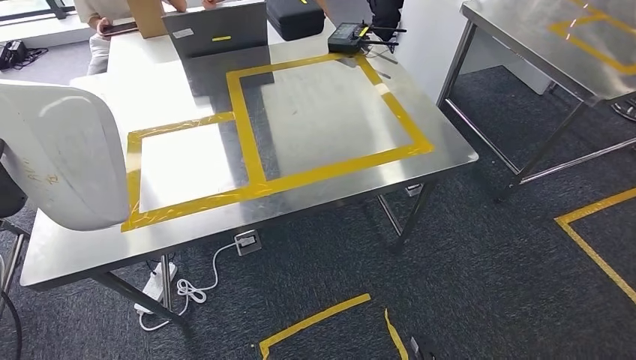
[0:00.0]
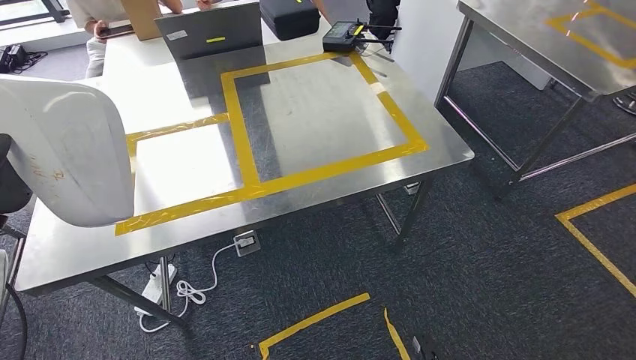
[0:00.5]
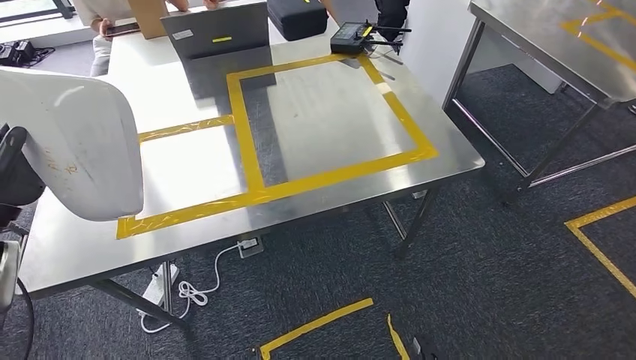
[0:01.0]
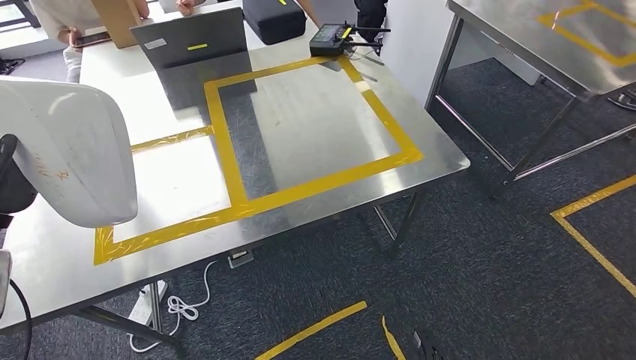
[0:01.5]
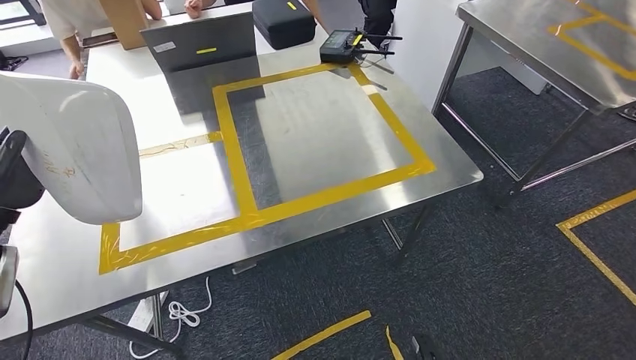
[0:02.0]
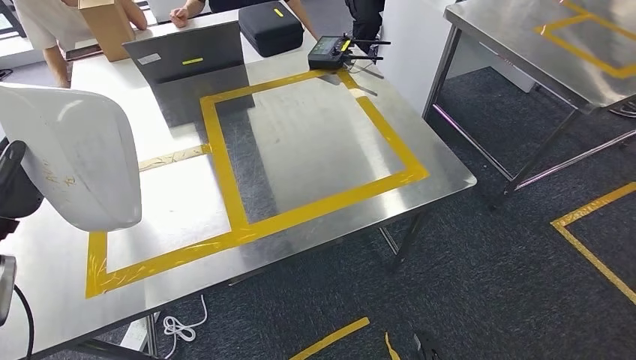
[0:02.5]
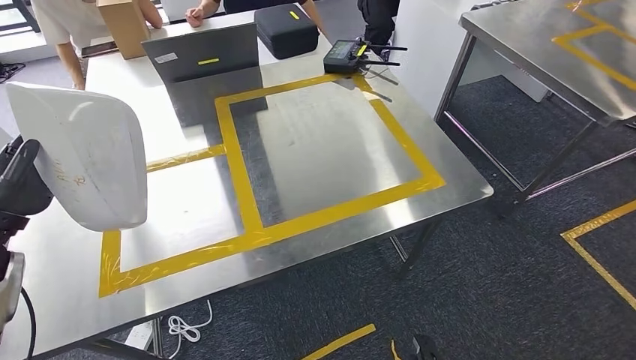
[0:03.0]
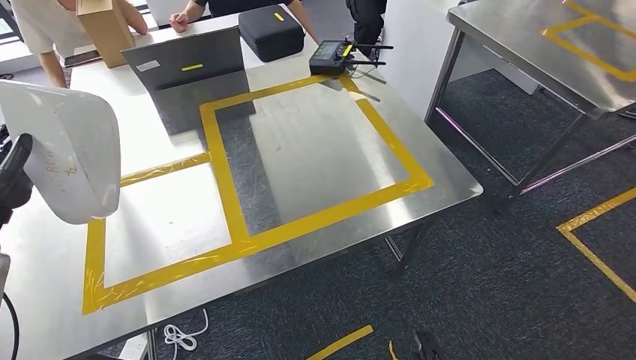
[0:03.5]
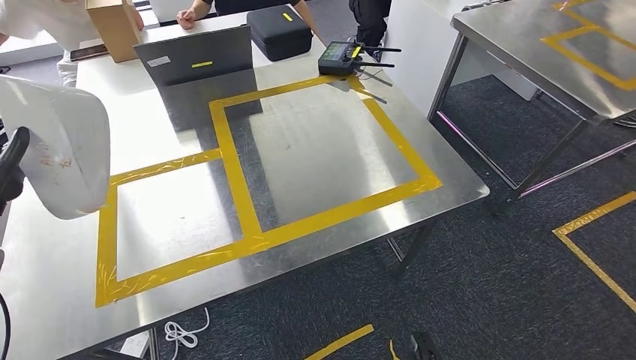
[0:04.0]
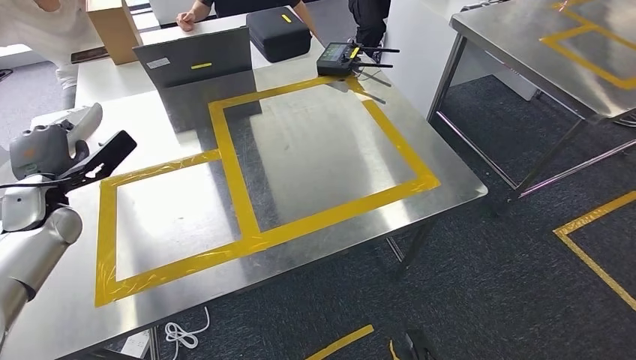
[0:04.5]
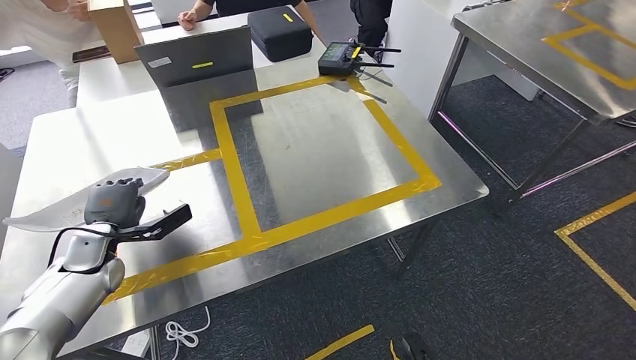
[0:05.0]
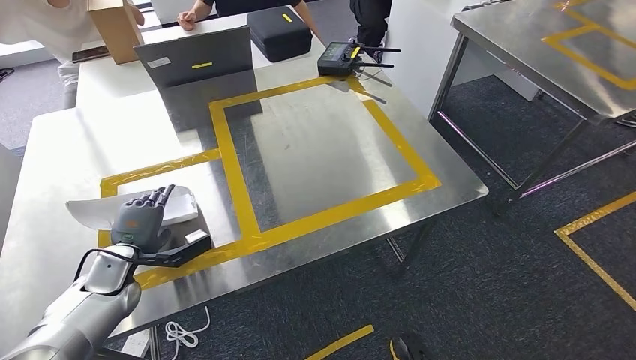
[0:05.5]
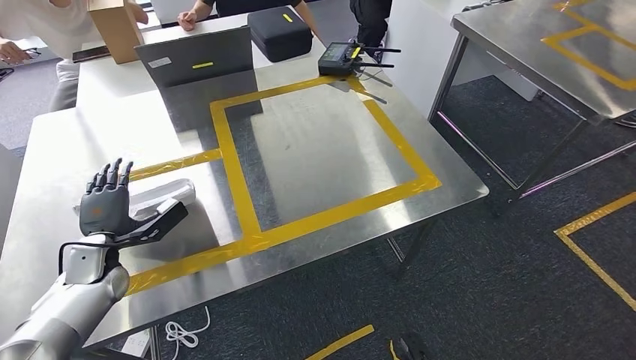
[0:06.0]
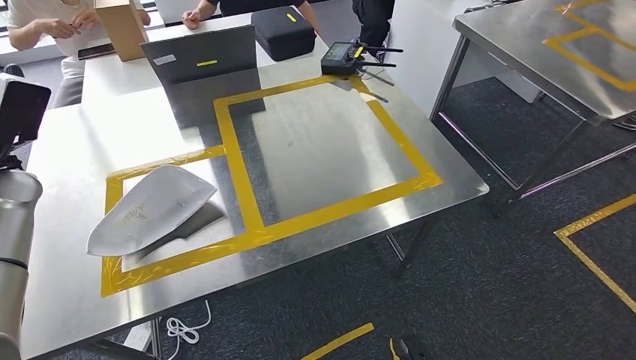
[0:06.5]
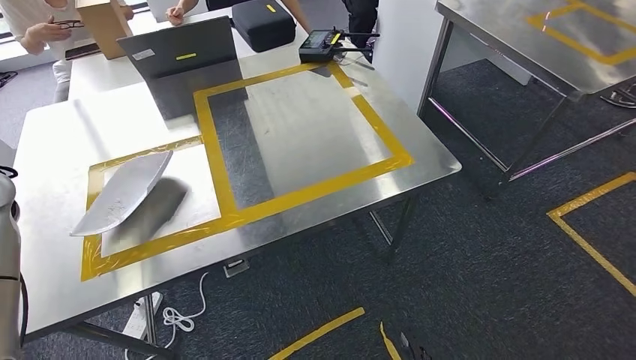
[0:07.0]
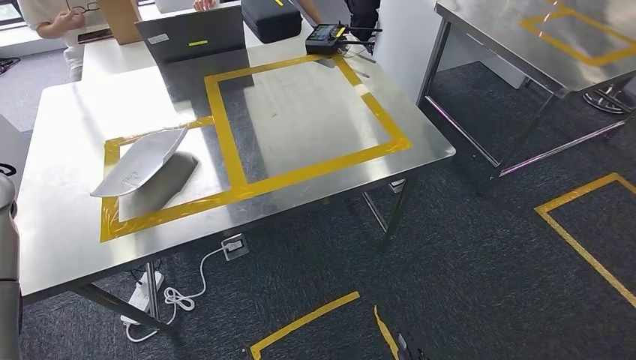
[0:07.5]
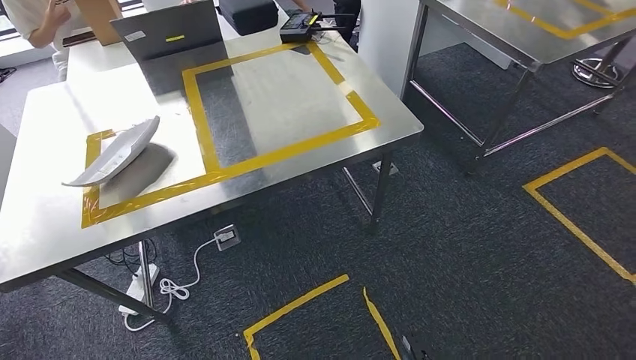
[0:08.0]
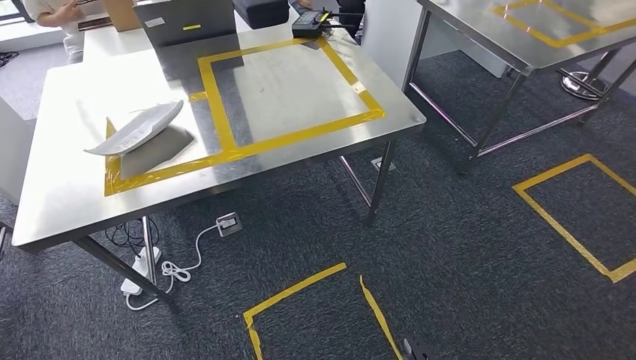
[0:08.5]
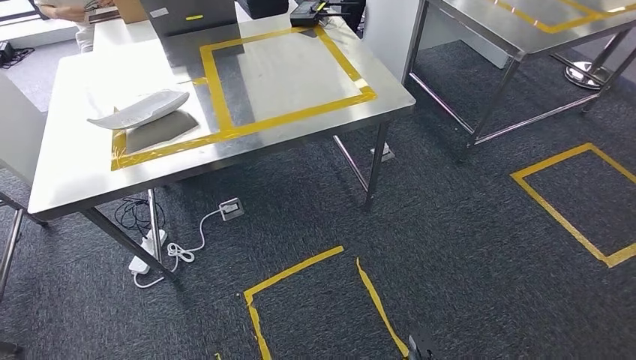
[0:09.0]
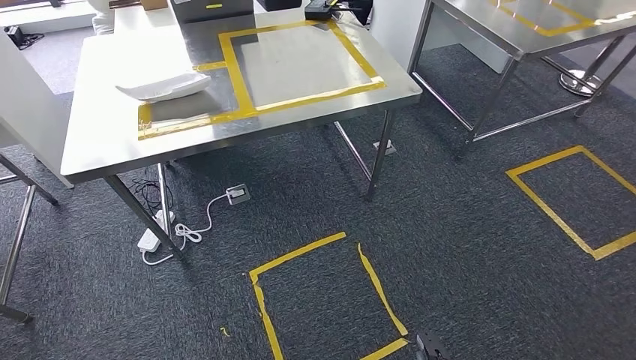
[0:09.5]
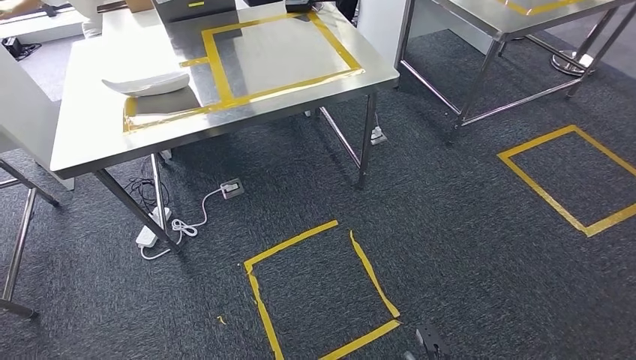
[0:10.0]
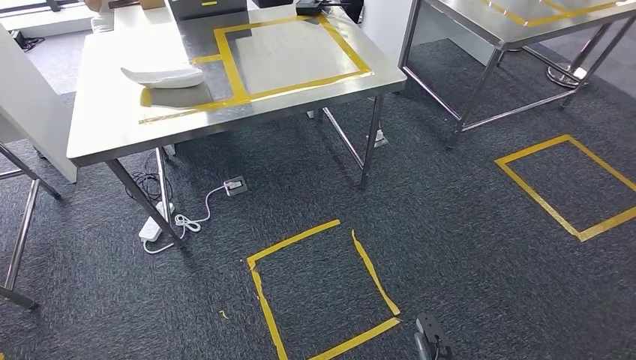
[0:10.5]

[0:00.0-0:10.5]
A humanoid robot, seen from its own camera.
Step, 0:00.0 to 0:07.0: Insert the small component into the corresponding slot on the workbench.
Step, 0:08.0 to 0:10.5: Return to the initial position at the workbench.
